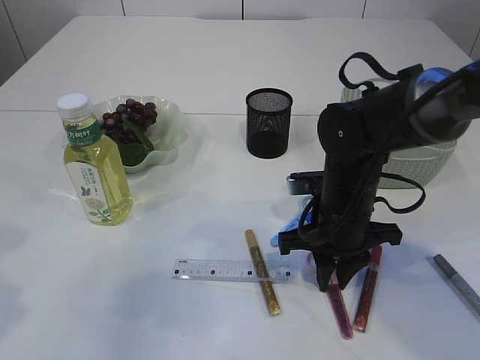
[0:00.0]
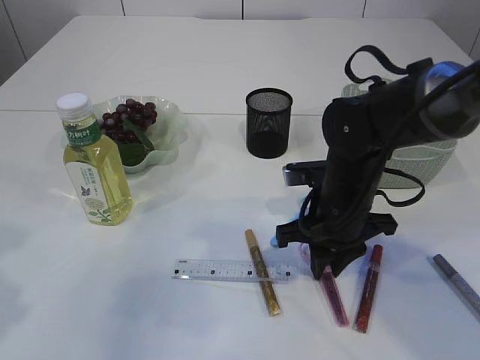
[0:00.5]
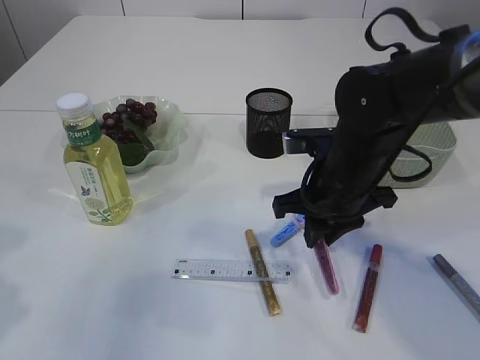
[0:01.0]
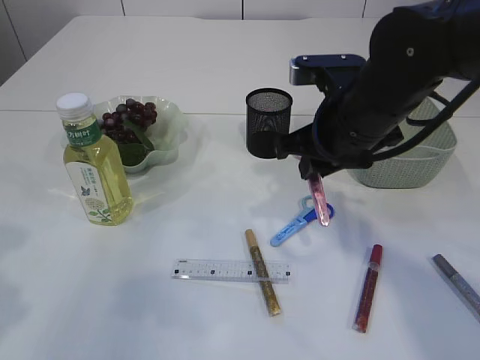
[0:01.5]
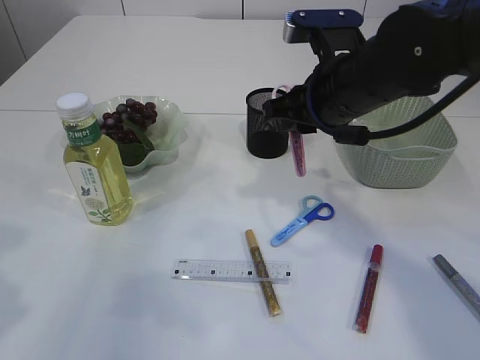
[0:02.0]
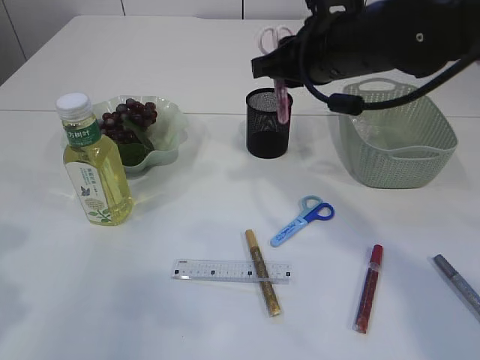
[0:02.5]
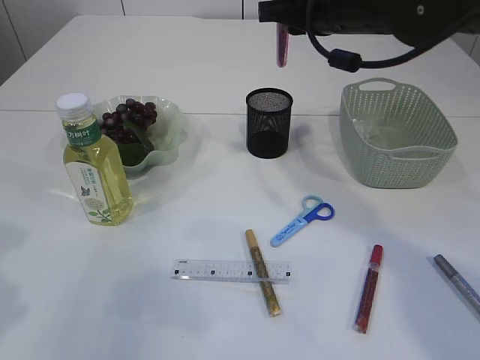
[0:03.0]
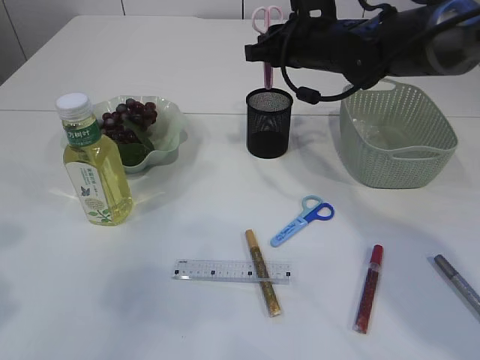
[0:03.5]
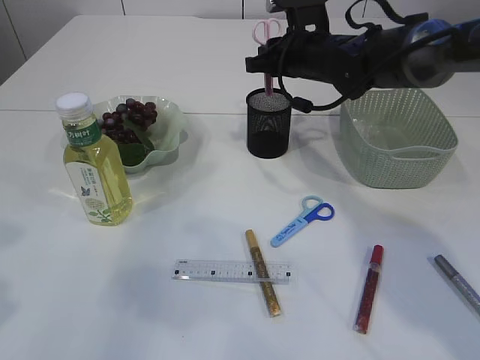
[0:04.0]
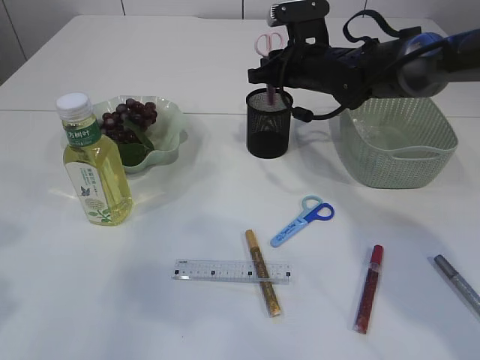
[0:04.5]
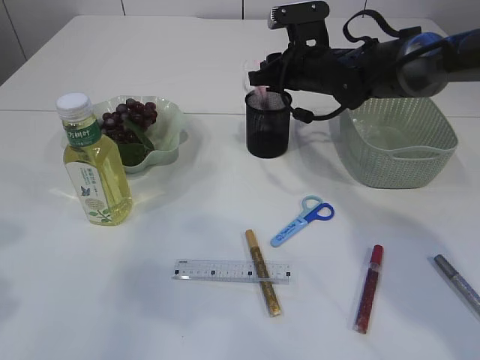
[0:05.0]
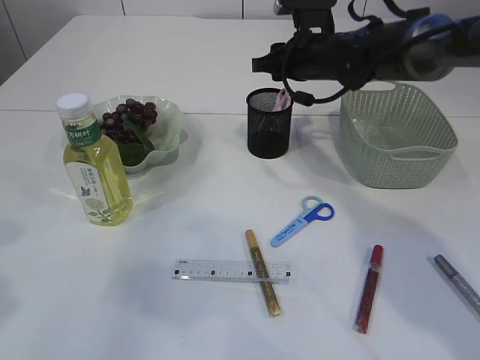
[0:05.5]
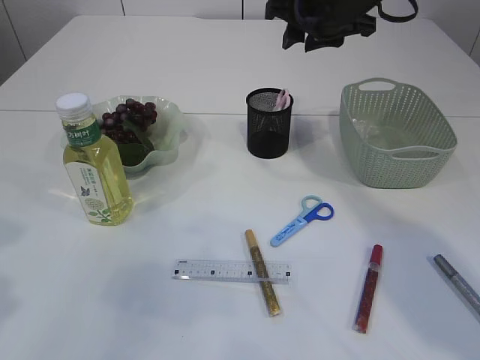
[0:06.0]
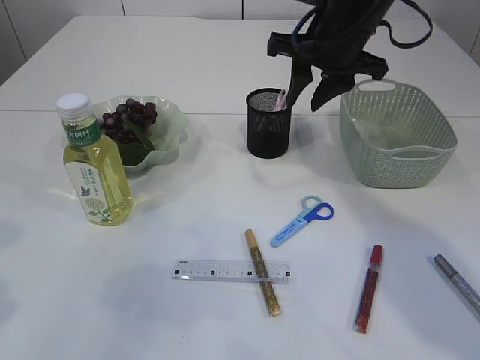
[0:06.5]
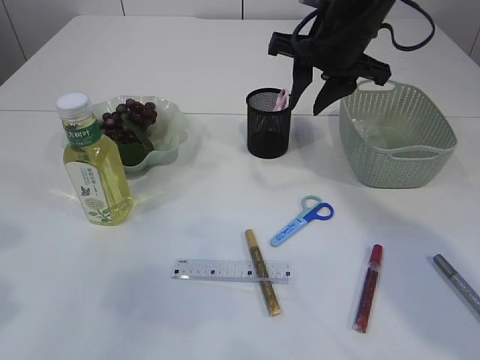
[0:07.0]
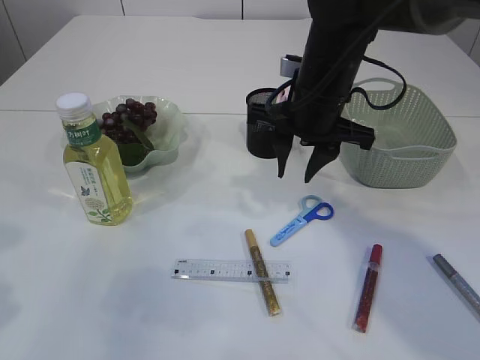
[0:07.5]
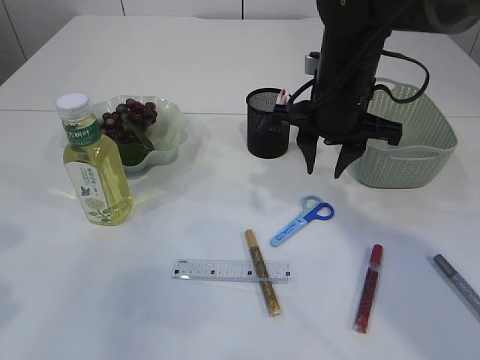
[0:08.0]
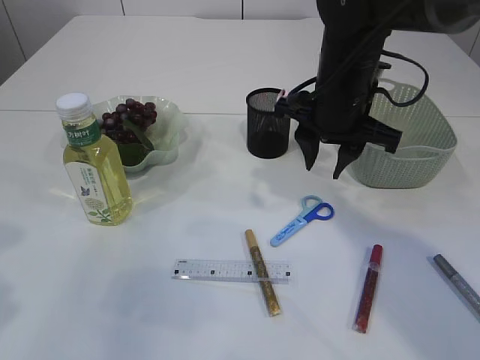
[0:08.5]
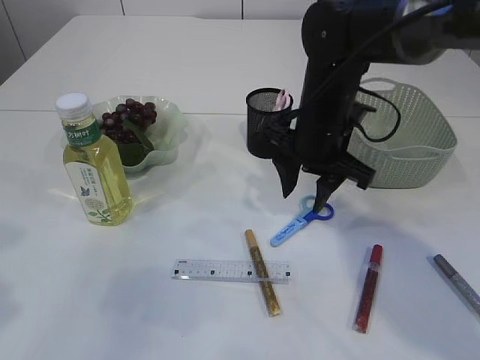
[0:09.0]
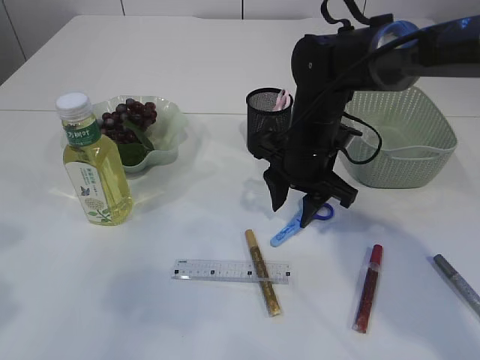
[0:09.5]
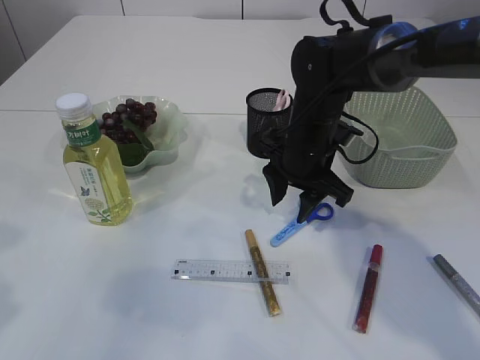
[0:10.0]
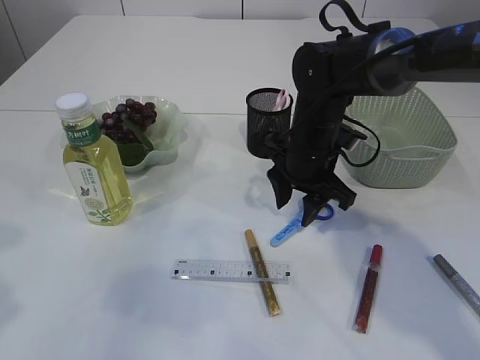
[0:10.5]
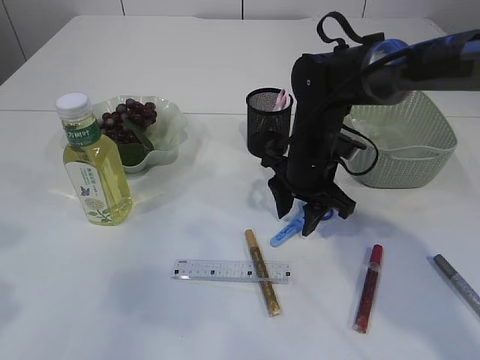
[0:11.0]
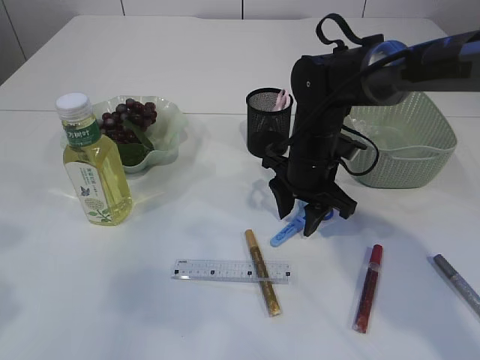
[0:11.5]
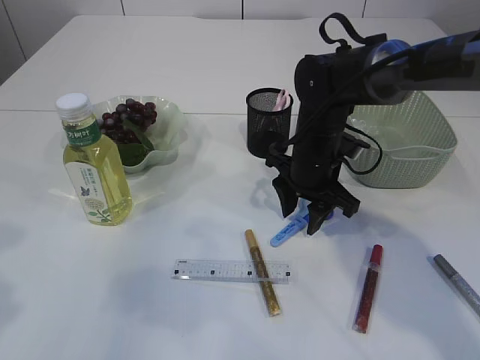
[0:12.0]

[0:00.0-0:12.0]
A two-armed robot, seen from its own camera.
Step, 1.5 to 5.5 s: Place the pink scissors into the pen holder.
0.0 to 2.0 s: The right gripper moves upward, roughly 15 cm.
2.0 to 4.0 s: The right gripper travels forward by approximately 15 cm.
4.0 to 6.0 s: The right gripper heads upward, covering some 10 cm.
6.0 to 8.0 s: The right gripper moves backward and downward, approximately 10 cm.
8.0 to 10.0 s: The right gripper travels downward by approximately 10 cm.
10.0 to 12.0 s: The grippers stay close to where they were, moving slightly.

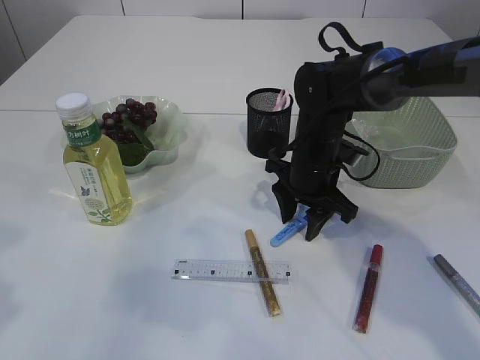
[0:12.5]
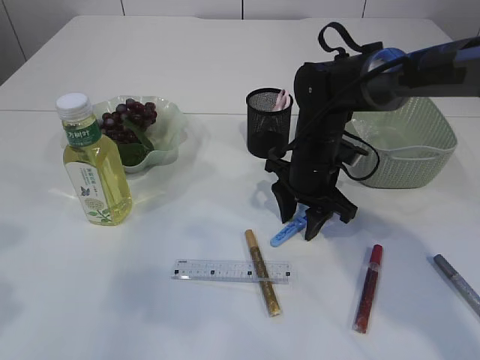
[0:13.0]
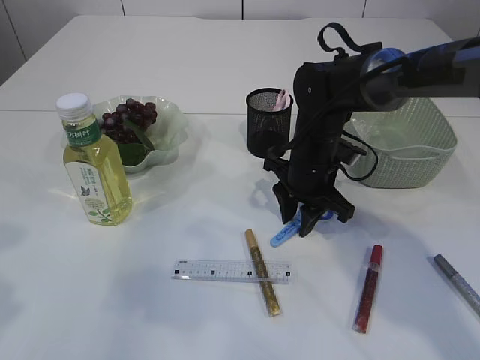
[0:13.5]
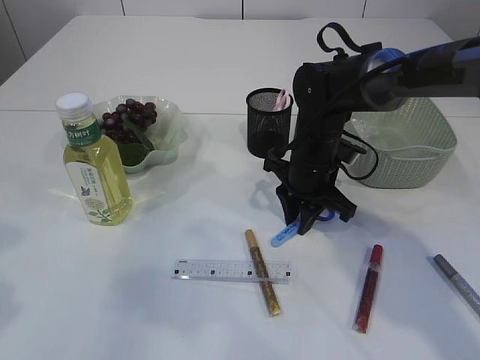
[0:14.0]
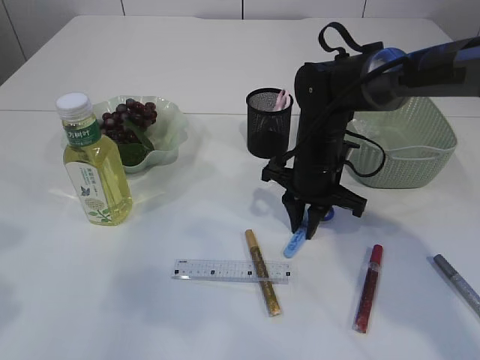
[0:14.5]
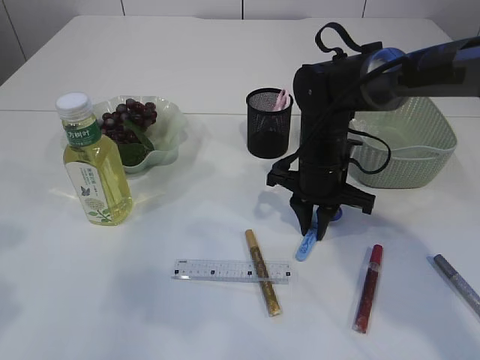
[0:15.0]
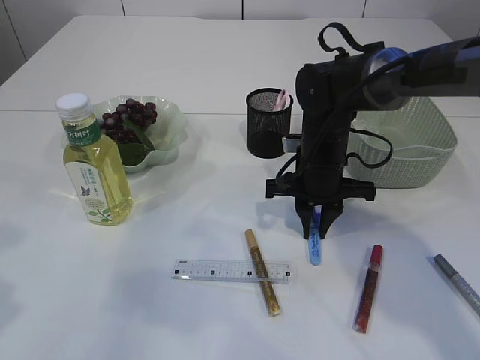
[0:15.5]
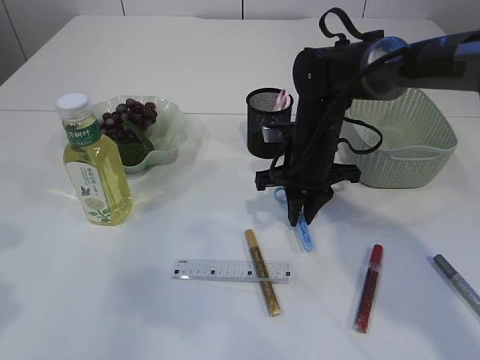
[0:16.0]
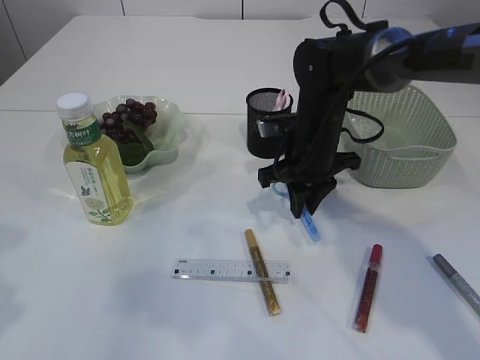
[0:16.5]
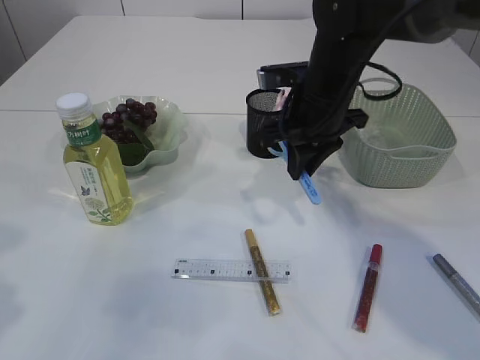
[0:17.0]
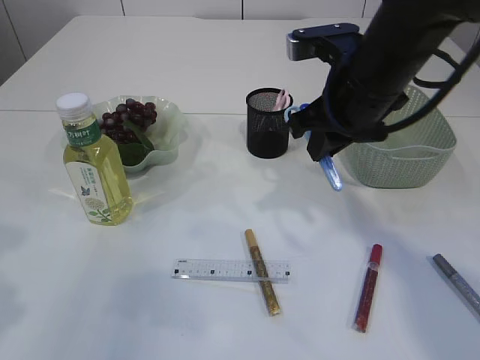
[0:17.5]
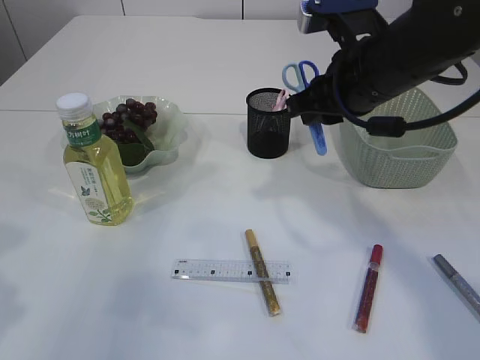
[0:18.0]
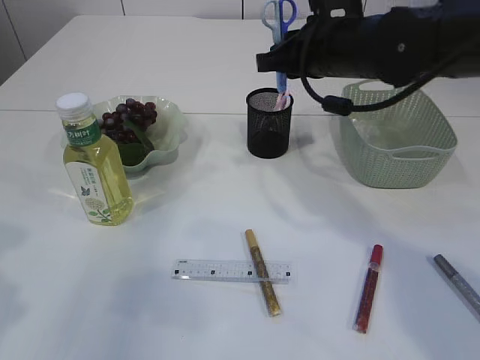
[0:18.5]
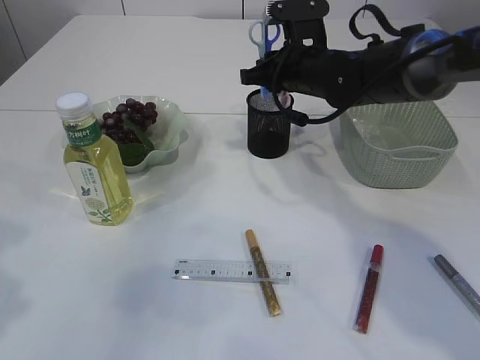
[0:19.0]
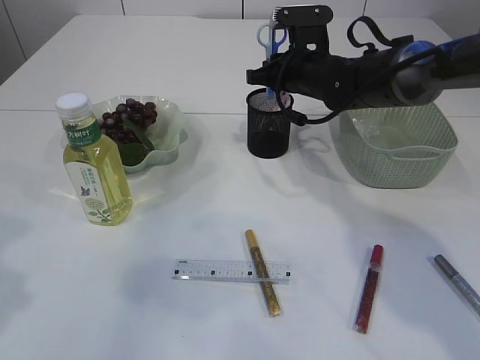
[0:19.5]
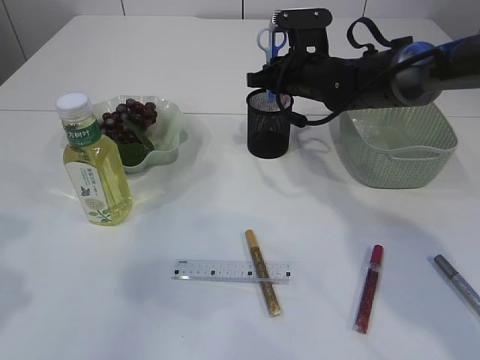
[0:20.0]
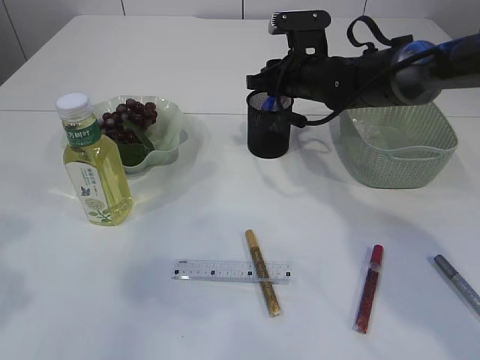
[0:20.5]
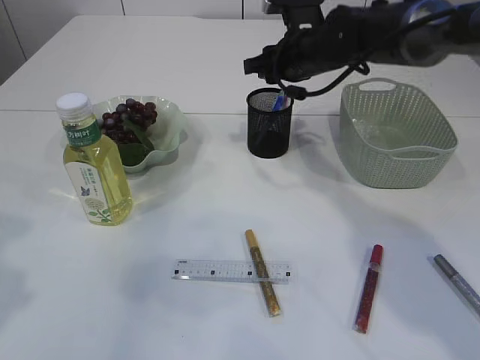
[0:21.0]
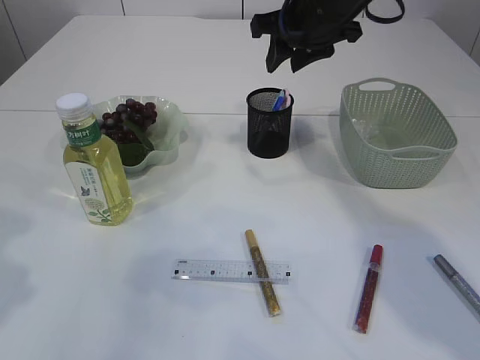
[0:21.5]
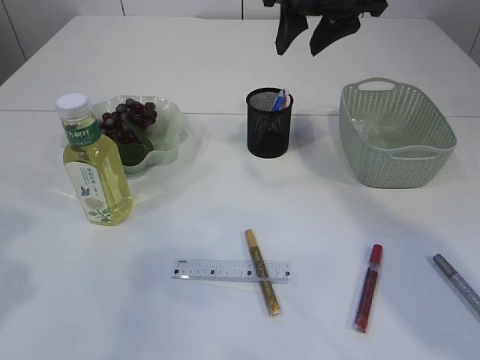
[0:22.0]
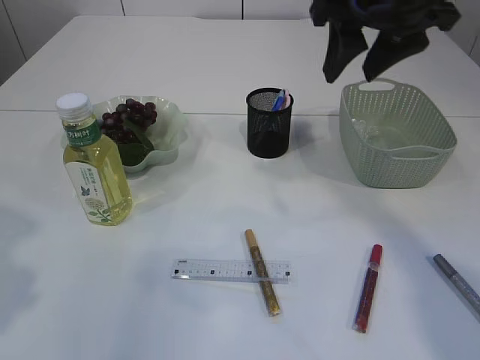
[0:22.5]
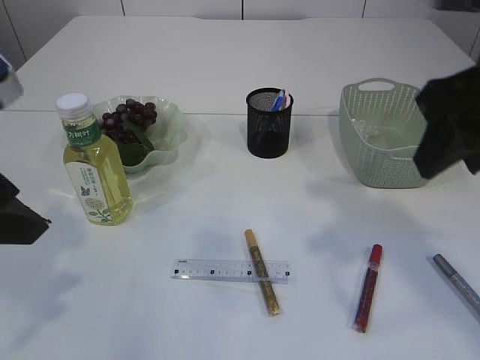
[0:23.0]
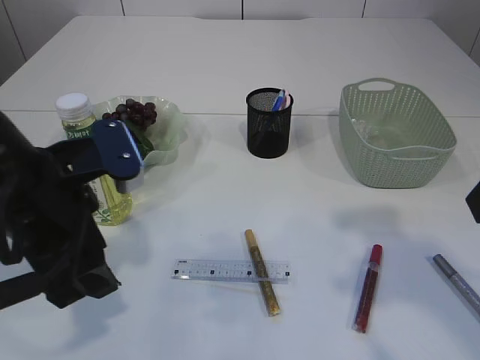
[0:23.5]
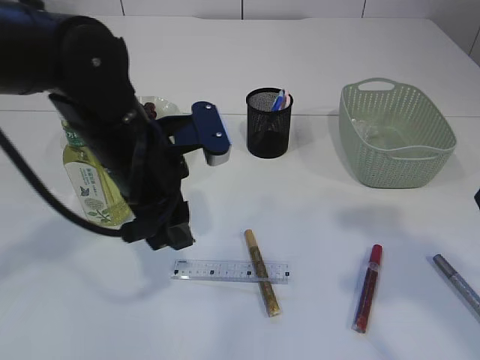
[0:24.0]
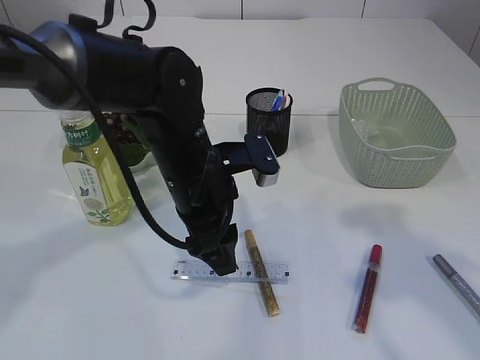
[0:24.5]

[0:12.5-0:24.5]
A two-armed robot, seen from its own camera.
Step, 12.5 to 16.5 s: pick up the blue scissors.
Step, 17.0 to 21.0 s: Place the blue scissors into the pen holder.
12.5 to 14.5 s: The right gripper closes up.
16.5 to 18.5 s: The right gripper shifts some 10 cm upward.
18.5 to 20.5 s: The right gripper moves forward and downward, roughly 10 cm.
20.5 to 22.5 s: The right gripper shifts approximately 20 cm upward and backward.
22.5 to 24.5 s: The left gripper goes about 30 cm to the right, downward and forward, while the right gripper travels backward by approximately 20 cm.

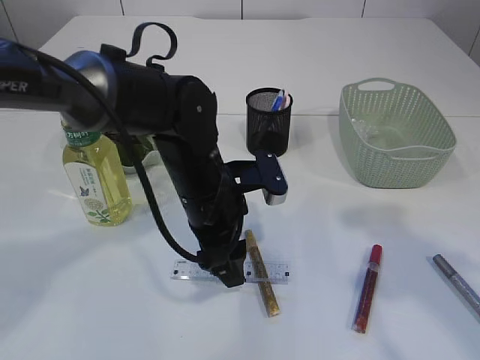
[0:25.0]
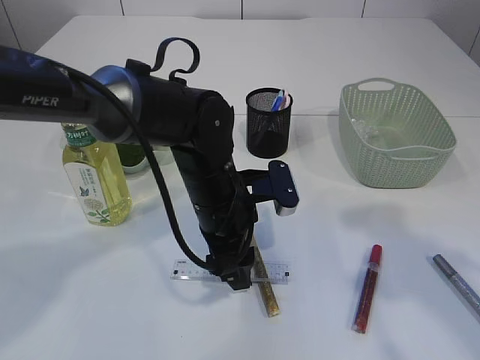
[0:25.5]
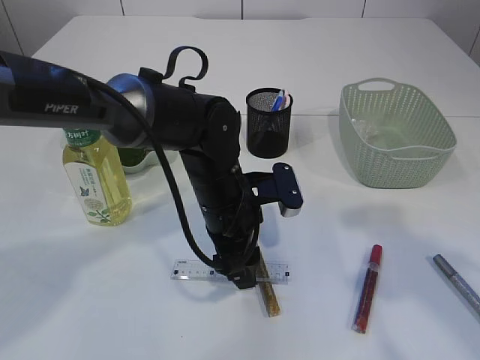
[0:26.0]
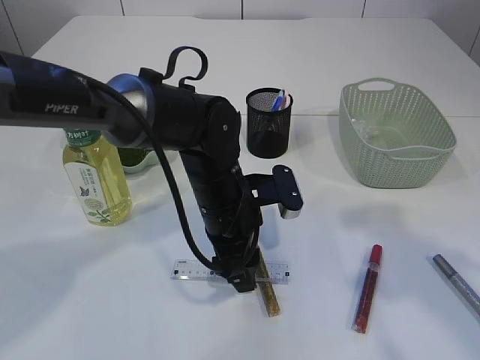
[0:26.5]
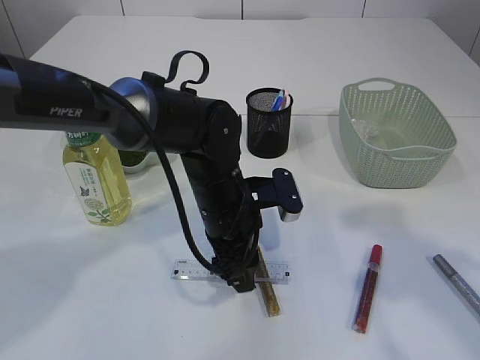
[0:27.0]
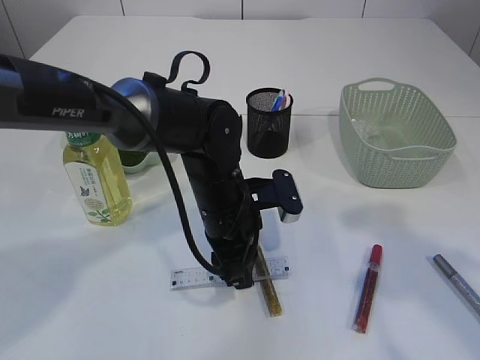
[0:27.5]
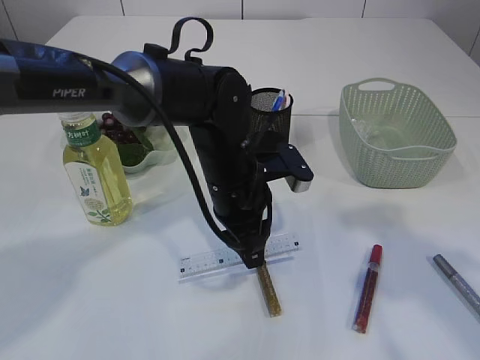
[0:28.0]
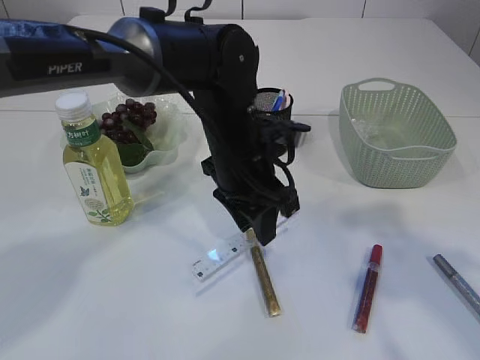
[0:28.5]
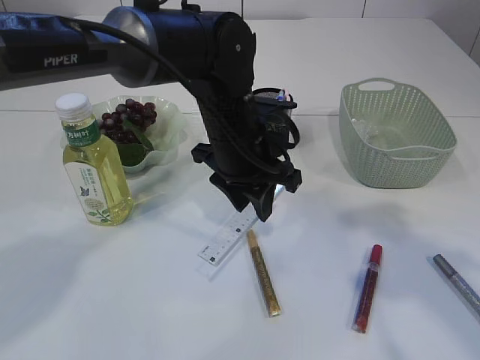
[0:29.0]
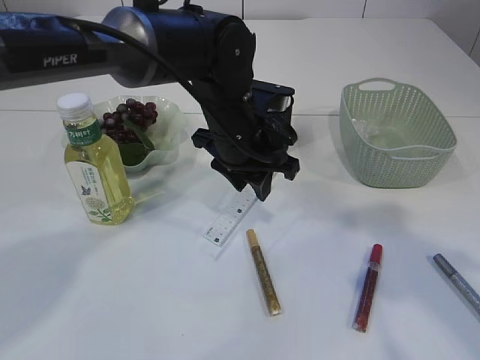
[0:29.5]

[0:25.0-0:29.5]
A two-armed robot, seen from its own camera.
Step, 25.0 to 29.0 s: pick up the ruler.
25.0 to 27.0 s: The grippers stay close to where they were, moving slightly.
27.0 to 29.5 s: The left gripper travels upward by roughly 5 cm, and closes.
